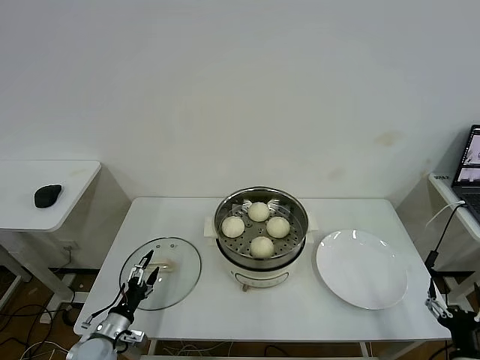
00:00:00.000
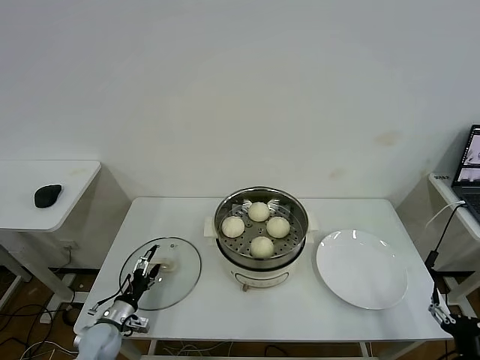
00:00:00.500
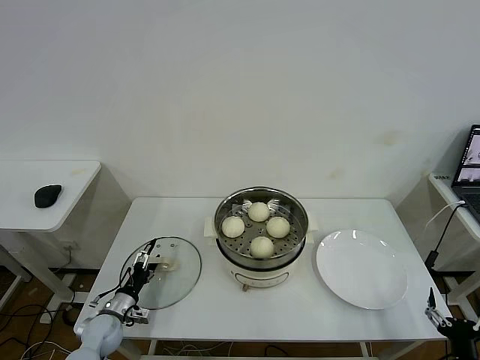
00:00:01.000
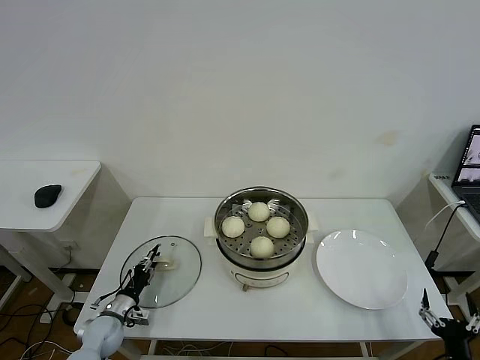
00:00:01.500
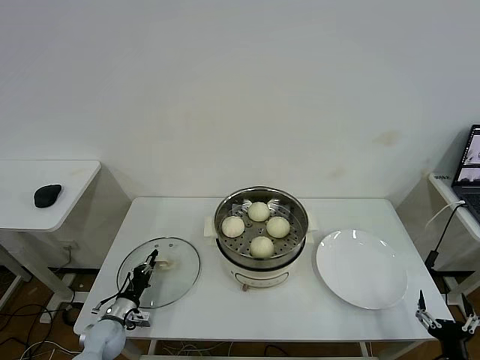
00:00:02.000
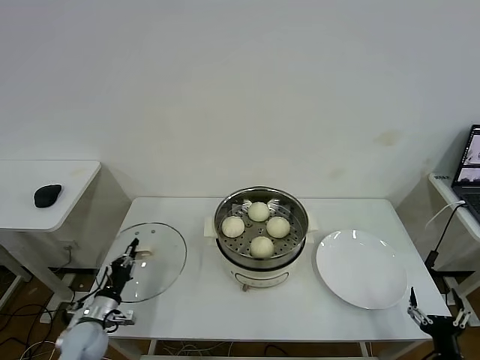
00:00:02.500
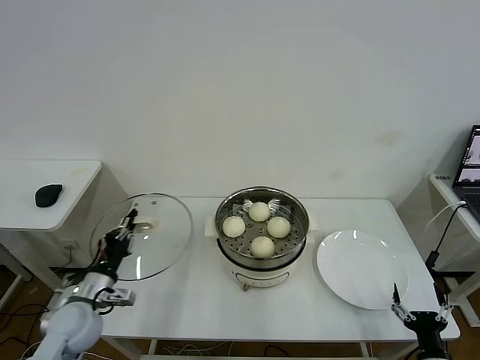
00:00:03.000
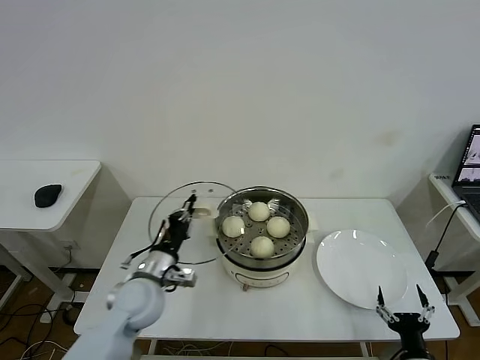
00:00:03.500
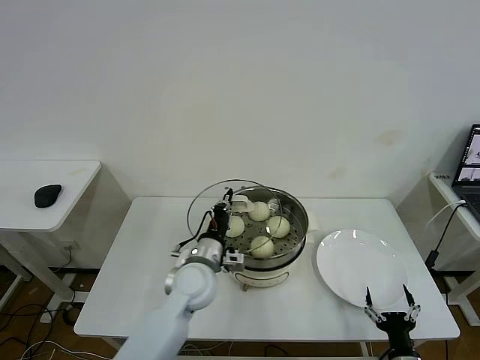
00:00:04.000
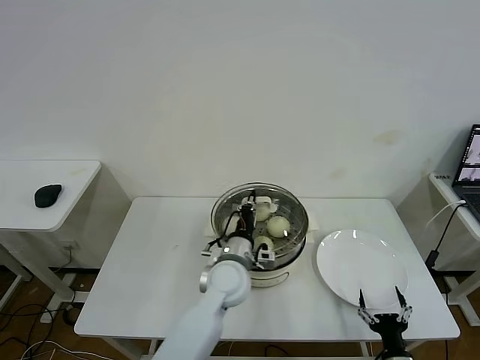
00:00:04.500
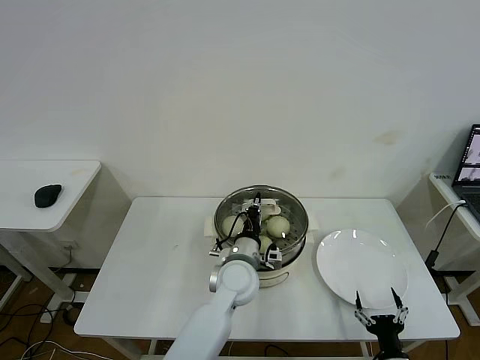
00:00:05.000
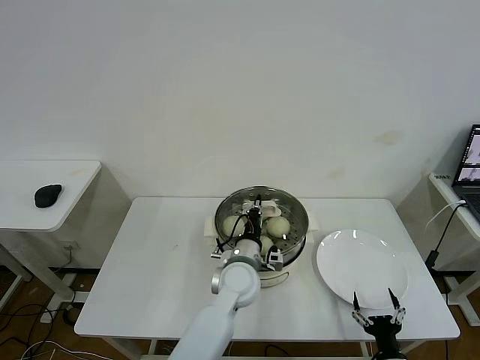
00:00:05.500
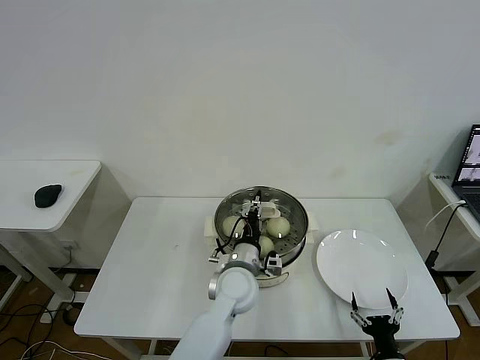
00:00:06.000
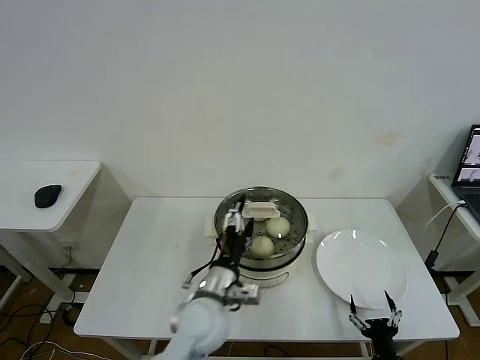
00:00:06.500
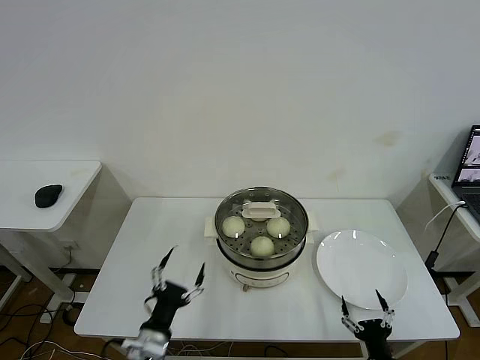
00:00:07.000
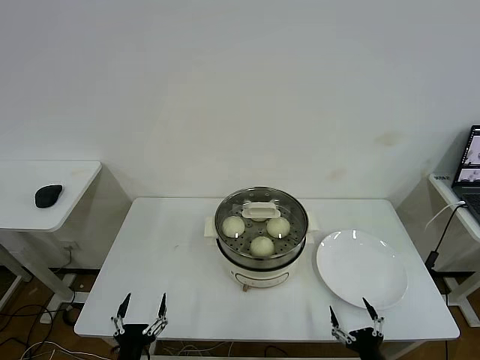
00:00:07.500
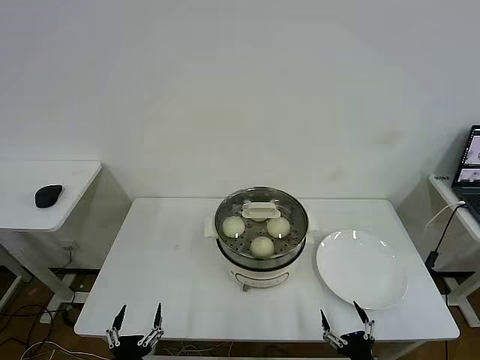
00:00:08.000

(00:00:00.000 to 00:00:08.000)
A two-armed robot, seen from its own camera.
Task of the whole recording: take steamed baozi put them in steamer then cover it.
Step, 00:00:00.000 - 00:00:02.000: Grasp the pot lid with left gripper.
Step, 00:00:02.500 - 00:00:06.000: Place the pot lid on the steamer with left gripper.
00:00:00.000 - 00:00:02.000: The left gripper travels forward by about 5 cm, and closes up.
00:00:02.000 - 00:00:04.000: The left gripper is displaced to the right and upward by some 35 cm; the right gripper goes approximately 10 cm to the left.
00:00:04.000 - 00:00:06.000: The left gripper heads to the right, covering approximately 10 cm, and opens up.
00:00:06.000 - 00:00:08.000: The left gripper goes some 35 cm backward and to the left, and opens, while the right gripper ends up roughly 5 cm from where it was.

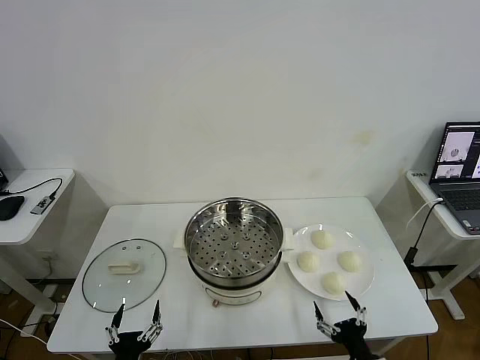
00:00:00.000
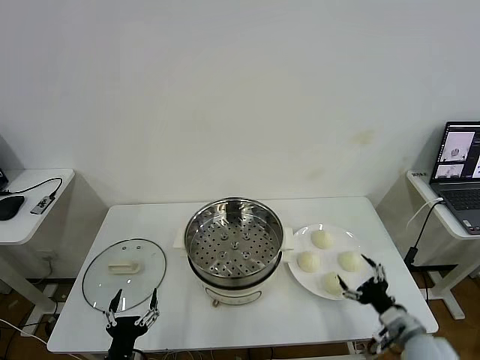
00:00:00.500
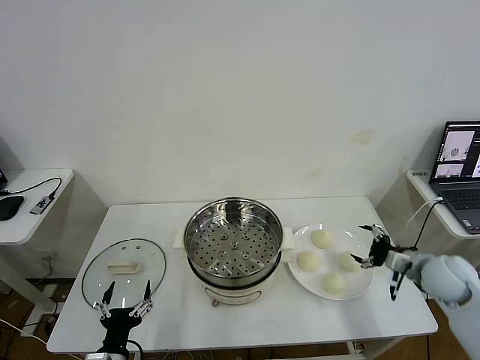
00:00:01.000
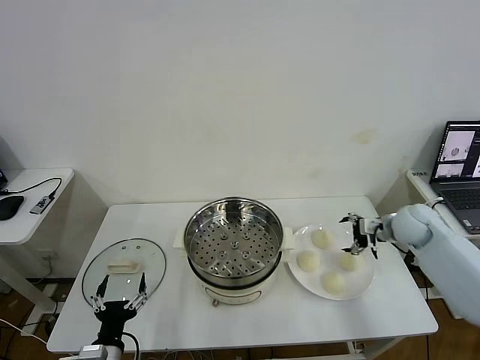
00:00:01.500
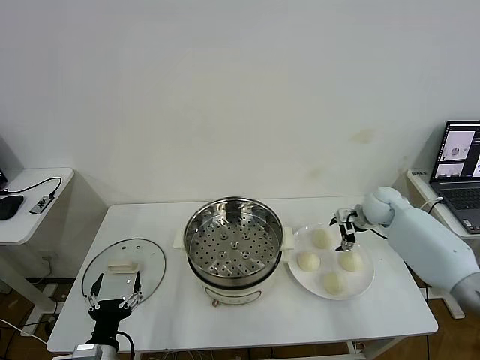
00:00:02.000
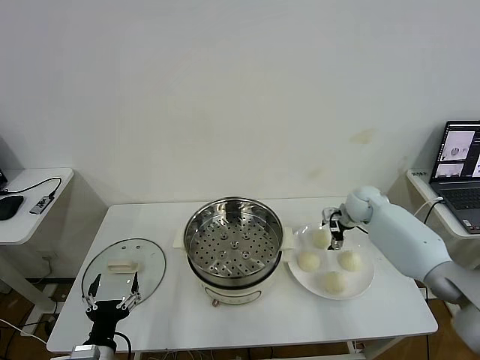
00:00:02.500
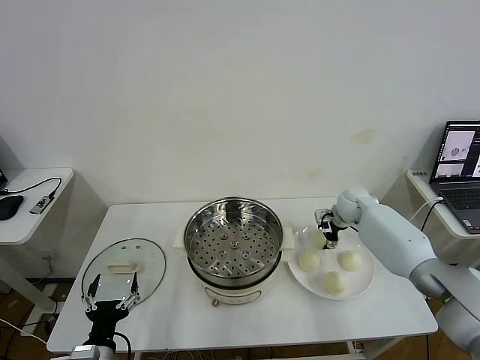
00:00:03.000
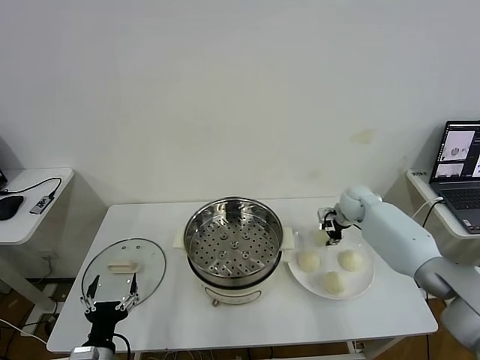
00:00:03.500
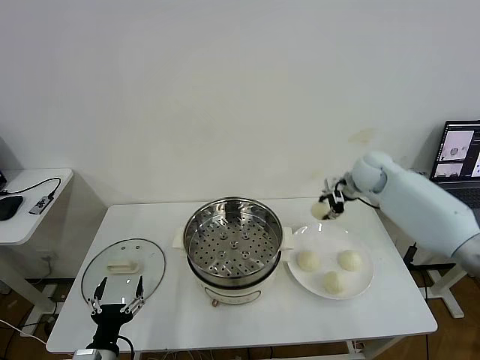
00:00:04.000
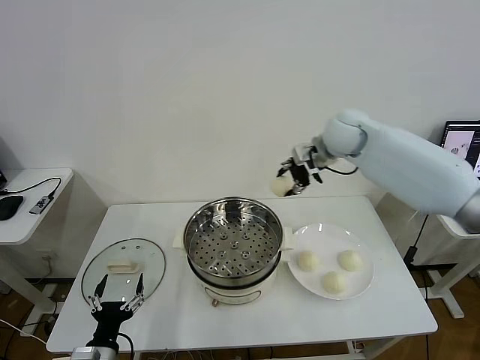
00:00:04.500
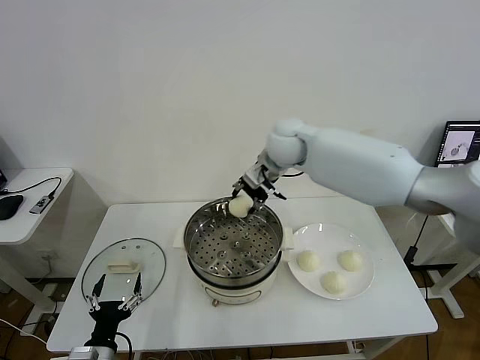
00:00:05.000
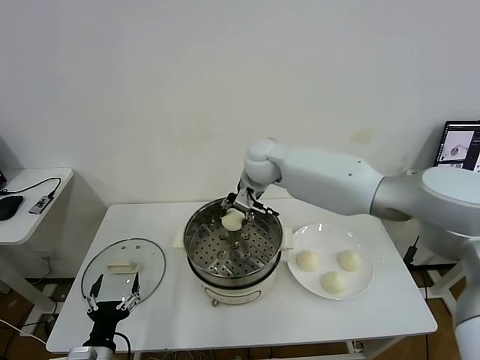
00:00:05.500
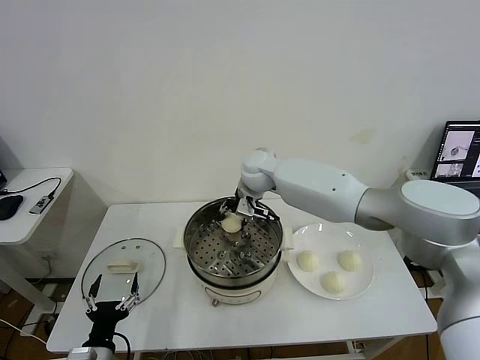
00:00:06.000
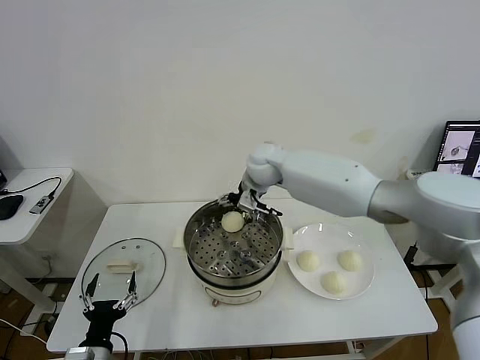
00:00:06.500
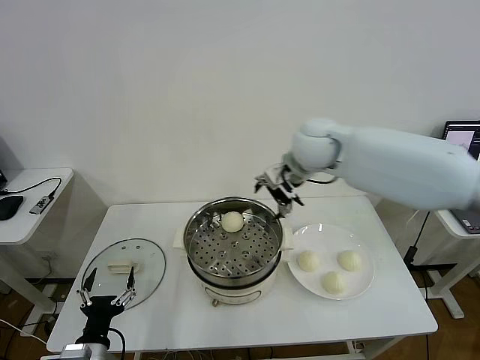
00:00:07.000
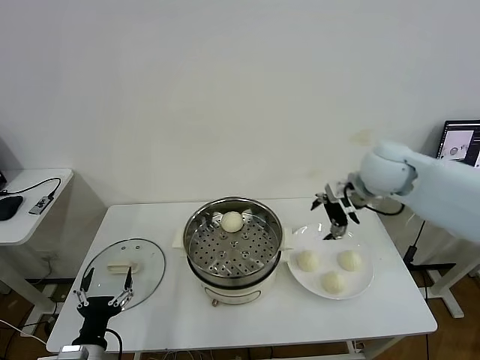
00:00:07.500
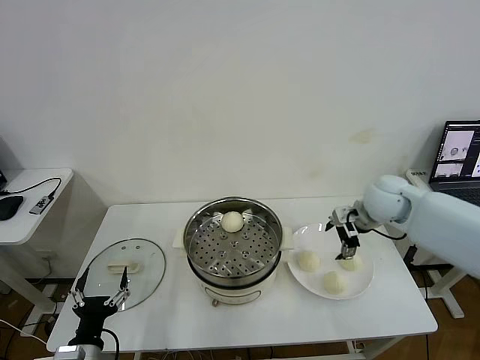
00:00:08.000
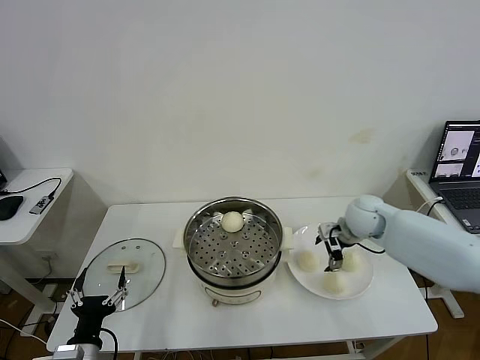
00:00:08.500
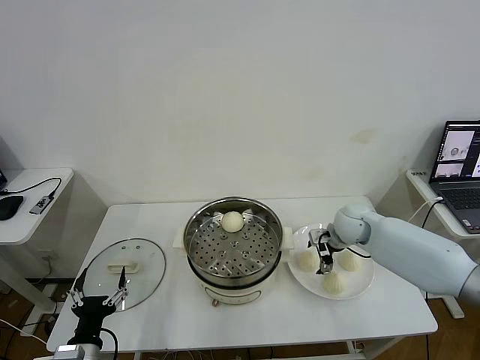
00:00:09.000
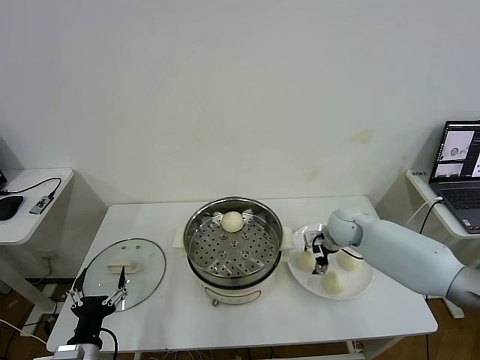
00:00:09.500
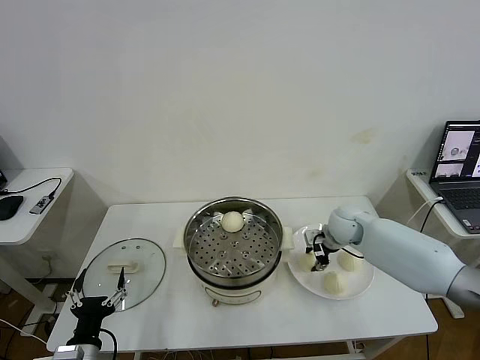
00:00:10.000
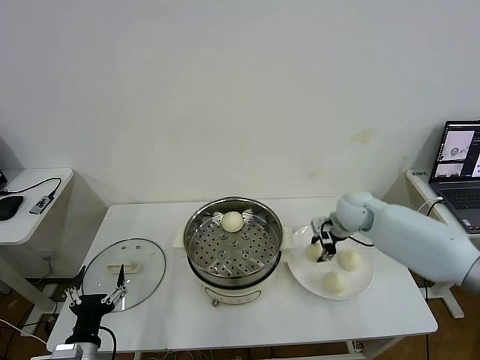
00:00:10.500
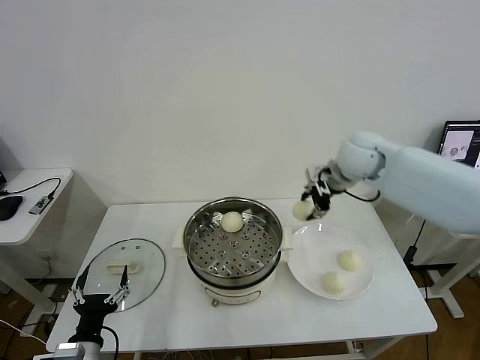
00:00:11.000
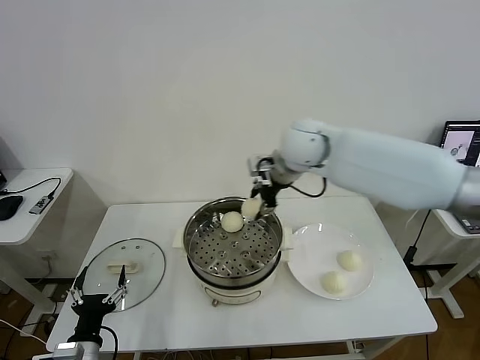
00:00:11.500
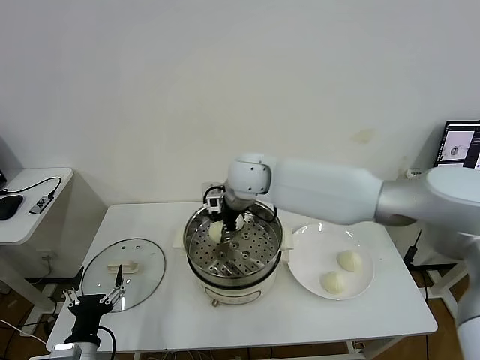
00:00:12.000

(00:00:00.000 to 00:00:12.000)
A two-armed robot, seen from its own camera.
Task of the whole recording: take steamed baozi put them in steamer then cover it.
Step, 00:00:00.000 - 00:00:03.000: Grasp the baozi in the plate with right gripper.
Step, 00:00:03.500 - 00:00:06.000: Place the baozi on the steamer with right gripper.
Step, 00:00:06.500 - 00:00:10.000: Grasp the baozi in the plate with right gripper.
00:00:02.000 - 00:00:04.000: The right gripper heads upward and to the left, covering about 15 cm, and closes up.
00:00:04.000 - 00:00:06.000: The right gripper heads to the left, covering about 25 cm.
00:00:06.000 - 00:00:08.000: The right gripper moves to the right, some 25 cm, and opens.
00:00:08.000 - 00:00:10.000: The right gripper shifts some 10 cm downward, and closes.
00:00:10.000 - 00:00:12.000: The right gripper goes approximately 30 cm to the left and upward.

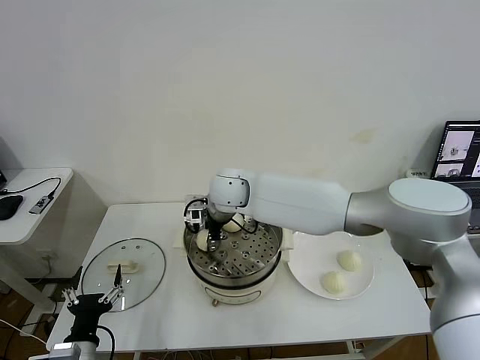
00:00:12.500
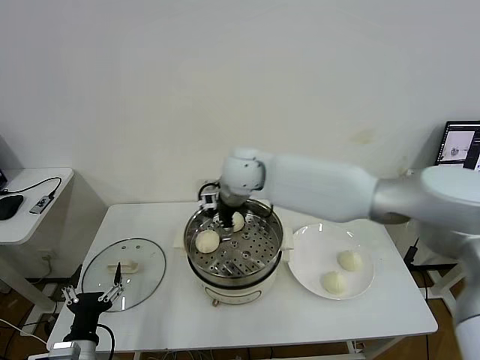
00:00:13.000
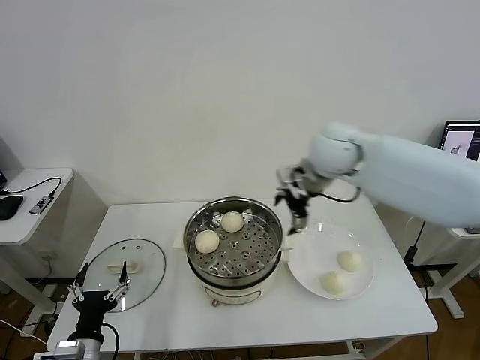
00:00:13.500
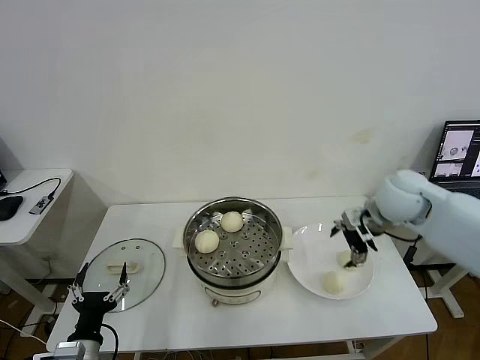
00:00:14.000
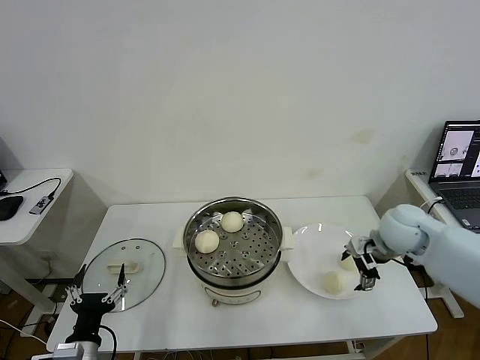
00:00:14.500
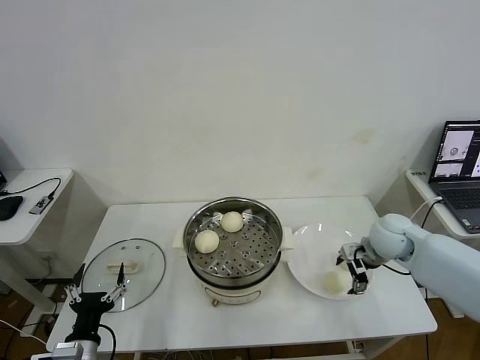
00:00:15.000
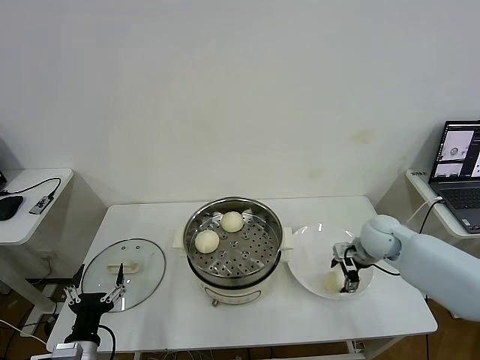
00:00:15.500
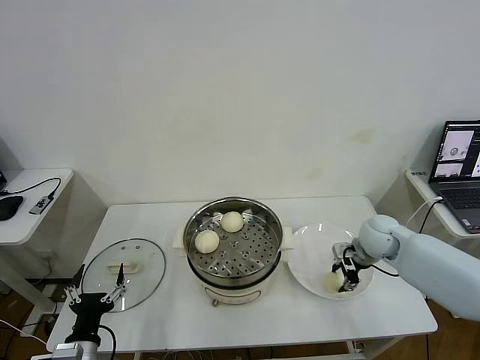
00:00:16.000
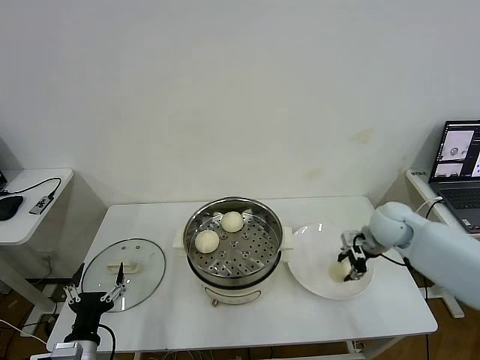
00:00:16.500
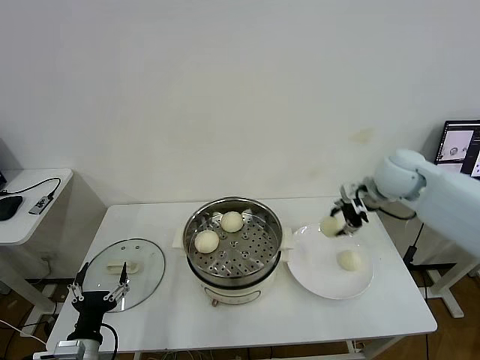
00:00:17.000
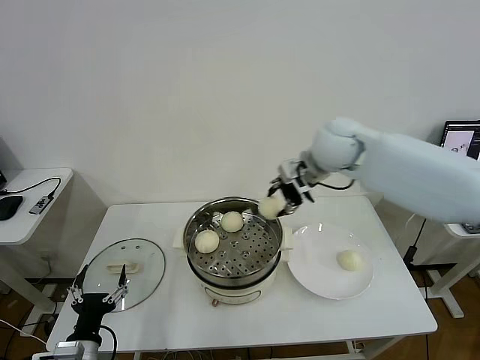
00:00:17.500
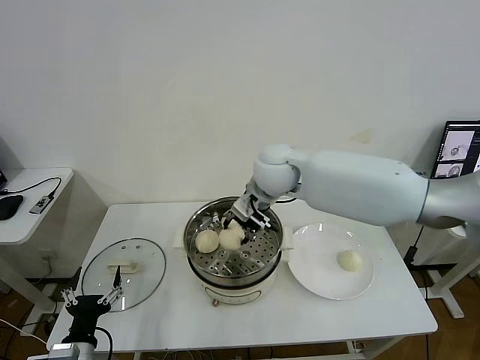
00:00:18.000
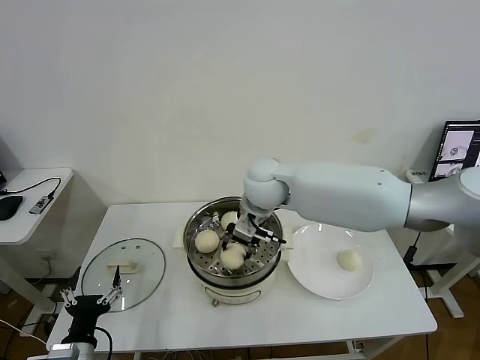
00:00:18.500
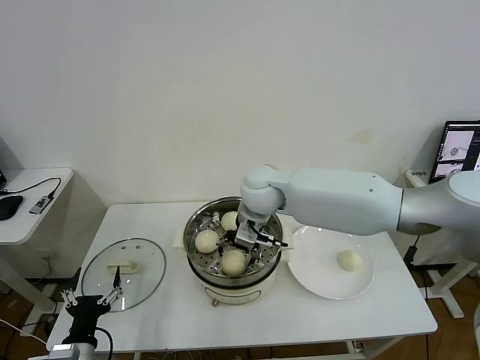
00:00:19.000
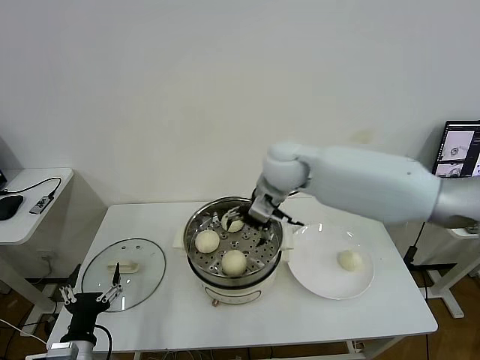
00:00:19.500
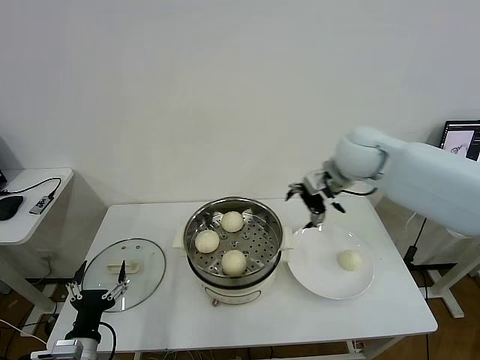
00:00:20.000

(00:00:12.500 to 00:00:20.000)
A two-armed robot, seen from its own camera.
Task of the whole recording: take steamed baozi put them in steamer then cover it.
Step, 00:00:13.000 - 00:00:16.000: Grasp the baozi in the plate with right gripper.
Step, 00:00:16.500 - 00:00:19.000: Place the baozi on the steamer with right gripper.
00:00:12.500 - 00:00:14.500: The right gripper moves to the right, about 35 cm, and opens.
00:00:14.500 - 00:00:16.500: The right gripper closes.
00:00:16.500 - 00:00:18.000: The right gripper travels to the left and upward by approximately 30 cm.
00:00:18.000 - 00:00:20.000: The right gripper shifts approximately 15 cm to the right, and opens.
